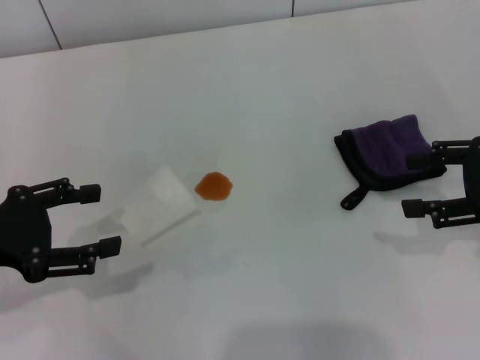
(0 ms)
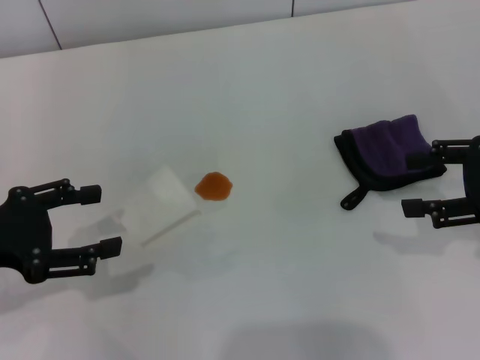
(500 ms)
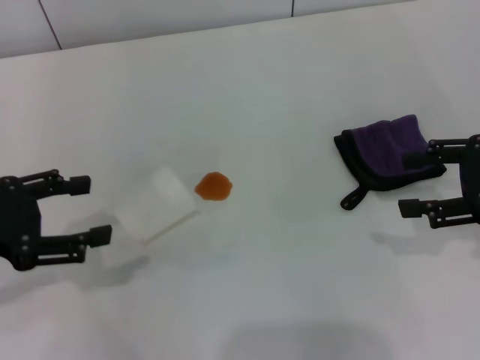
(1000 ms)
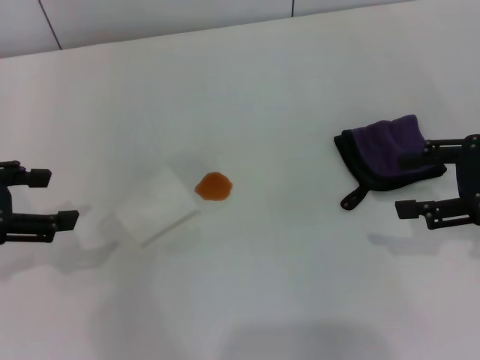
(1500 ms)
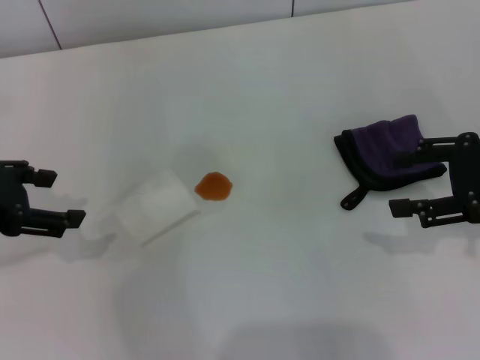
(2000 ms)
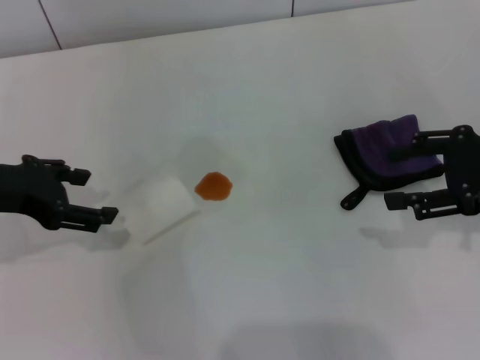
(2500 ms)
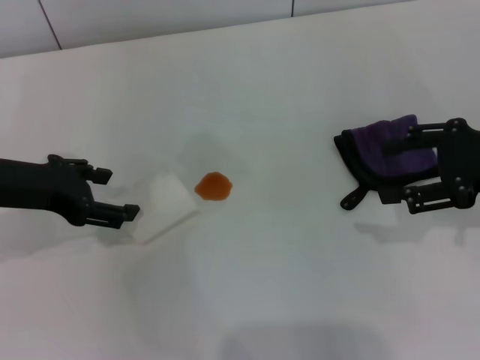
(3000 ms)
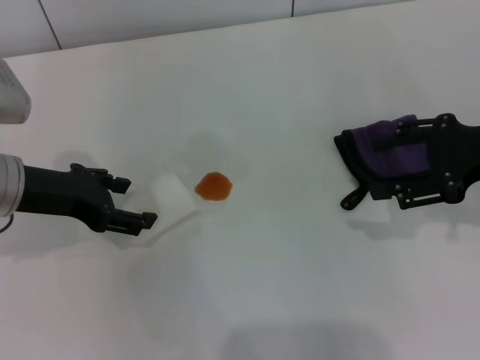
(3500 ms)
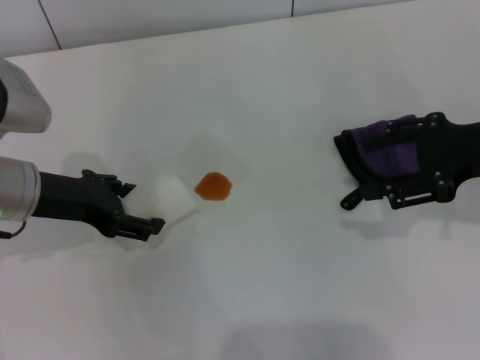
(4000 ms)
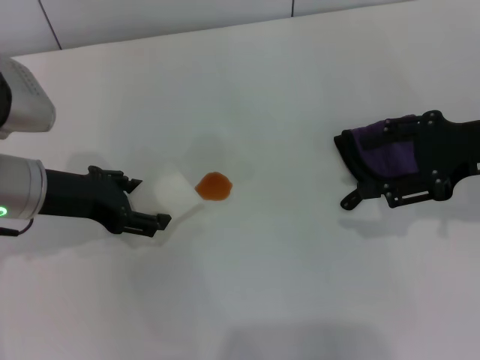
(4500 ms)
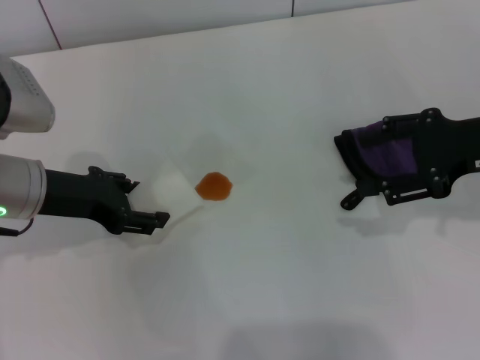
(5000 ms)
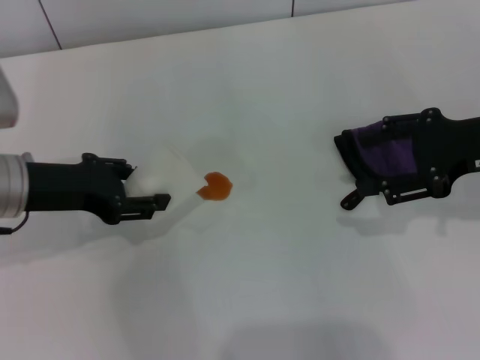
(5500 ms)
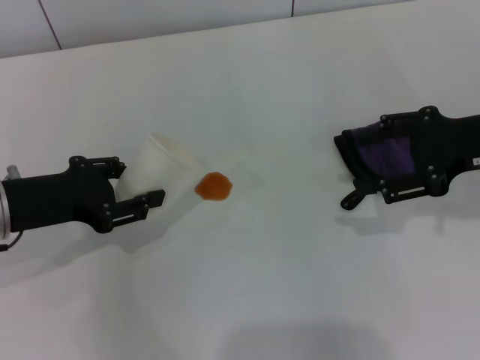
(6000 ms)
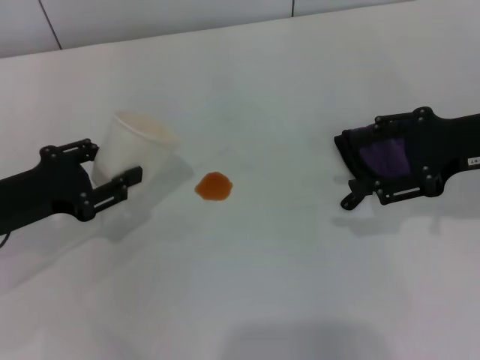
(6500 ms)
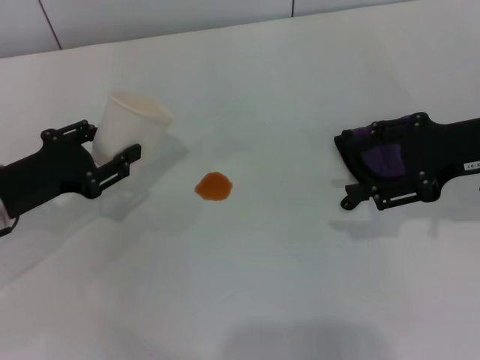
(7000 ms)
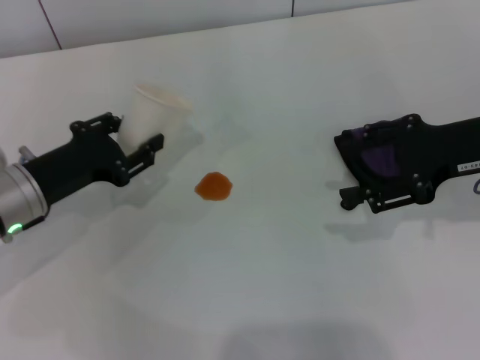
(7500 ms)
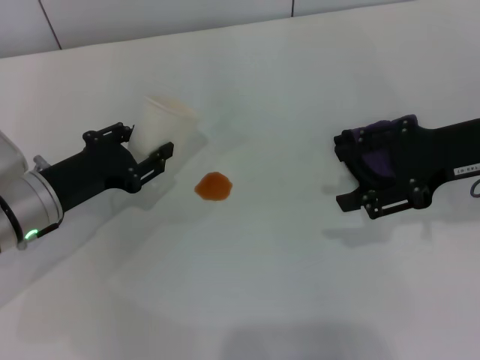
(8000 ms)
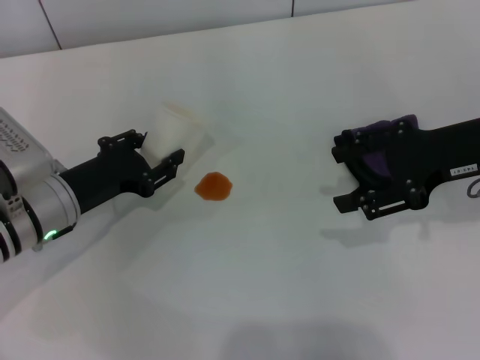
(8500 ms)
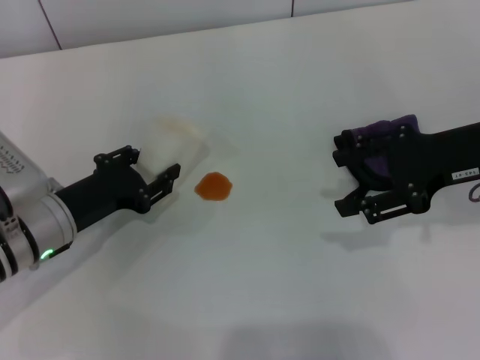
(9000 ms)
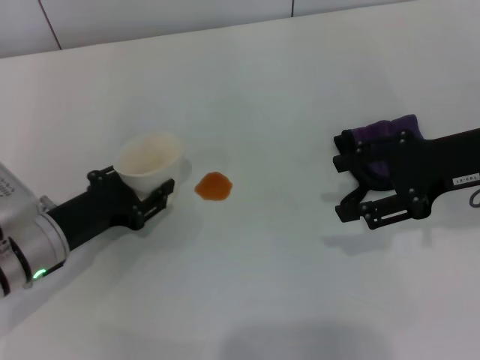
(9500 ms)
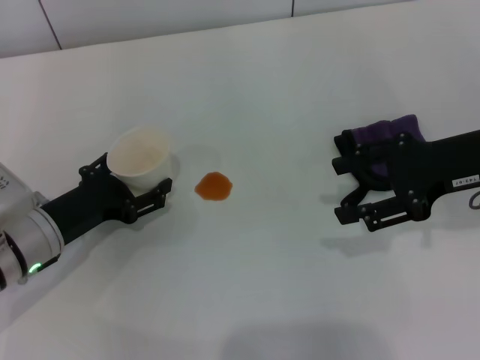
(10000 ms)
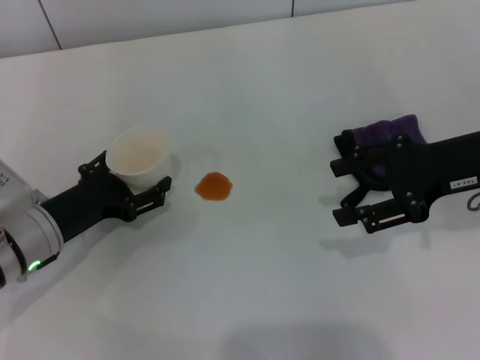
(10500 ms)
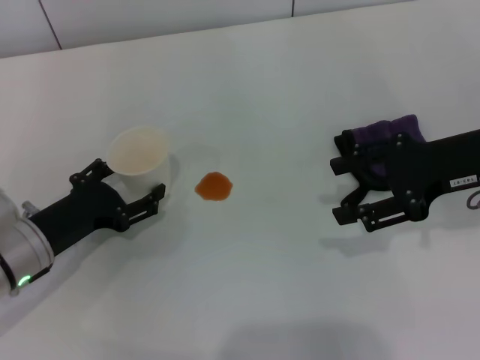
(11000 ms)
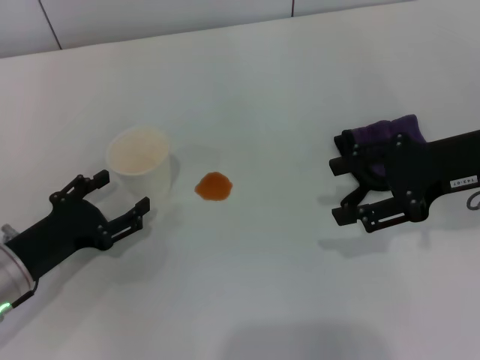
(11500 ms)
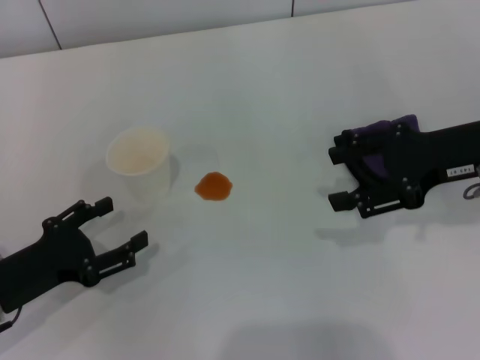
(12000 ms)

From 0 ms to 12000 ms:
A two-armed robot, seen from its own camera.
Step, from 0 ms to 4500 ms: Grasp the paper cup with the left gripper.
Step, from 5000 ms to 11500 ms: Stand the paper cup upright with the left gripper.
From 0 ms to 2000 ms: The left gripper moves roughly 5 cm.
From 2000 ms to 4000 ms: The left gripper shifts roughly 10 cm downward and to the right.
From 4000 ms to 6000 ms: The left gripper closes its fingers.
From 6000 ms to 8000 ms: The left gripper goes approximately 5 cm downward.
From 8000 ms to 10000 ms: The left gripper opens.
From 10000 ms to 12000 ms: The left gripper is displaced backward by about 5 cm, and opens its fingers.

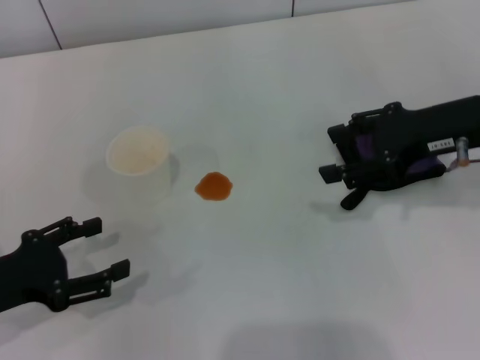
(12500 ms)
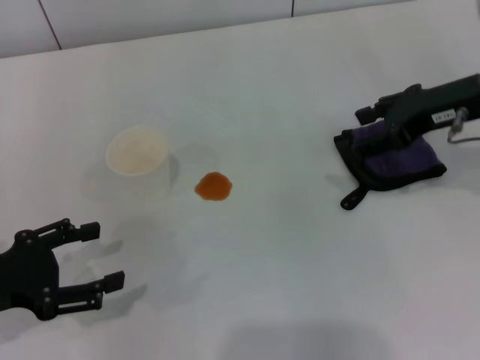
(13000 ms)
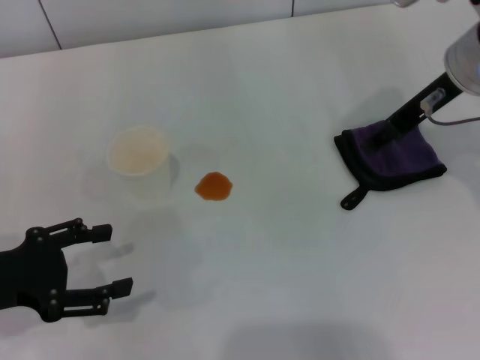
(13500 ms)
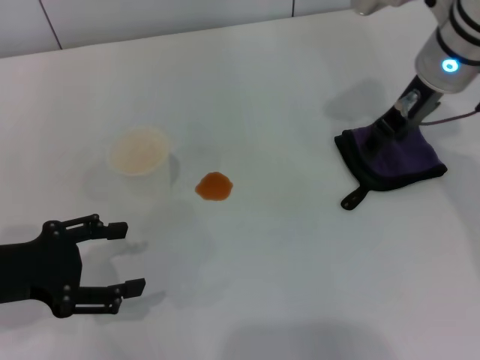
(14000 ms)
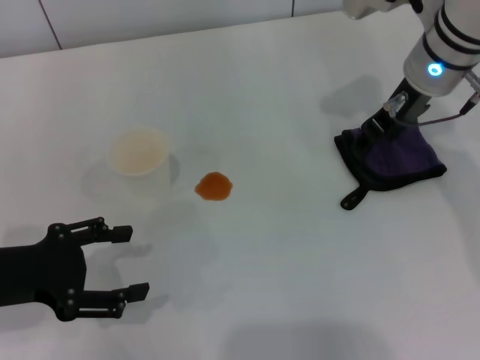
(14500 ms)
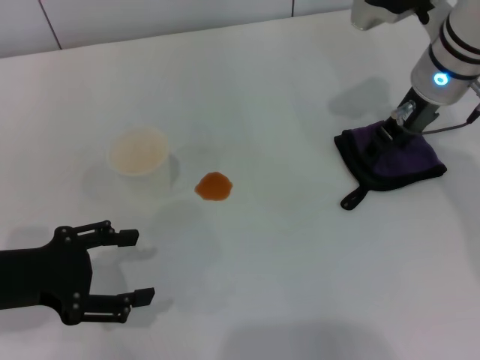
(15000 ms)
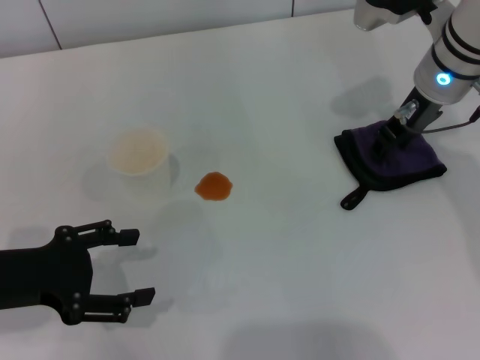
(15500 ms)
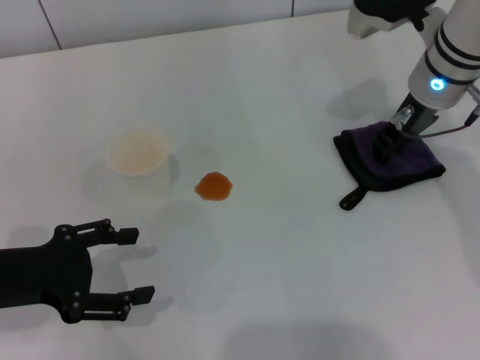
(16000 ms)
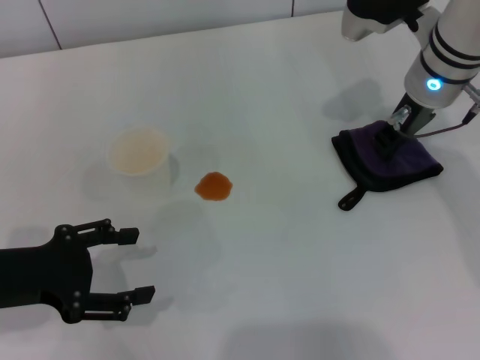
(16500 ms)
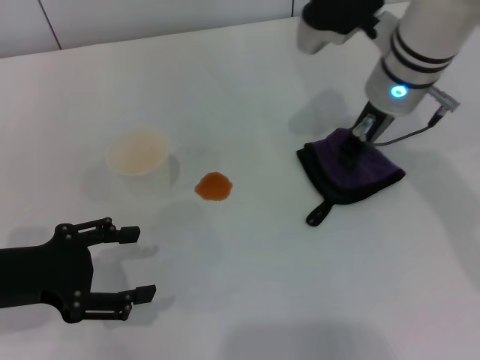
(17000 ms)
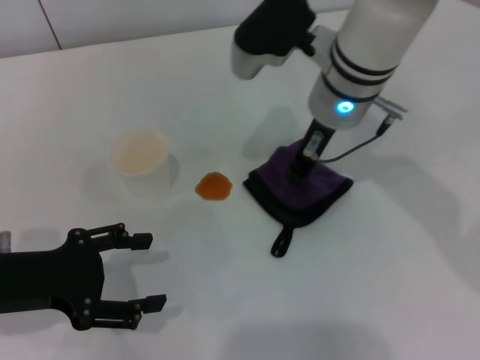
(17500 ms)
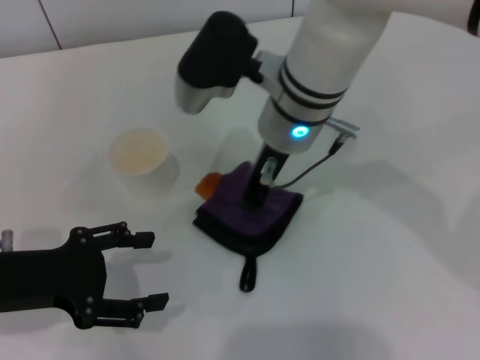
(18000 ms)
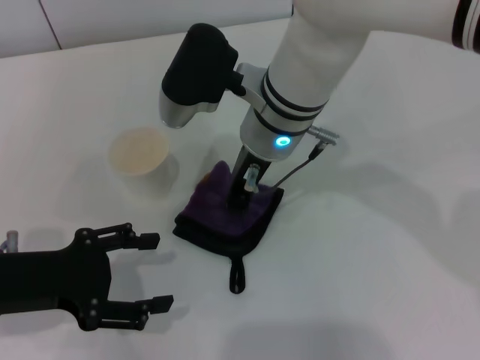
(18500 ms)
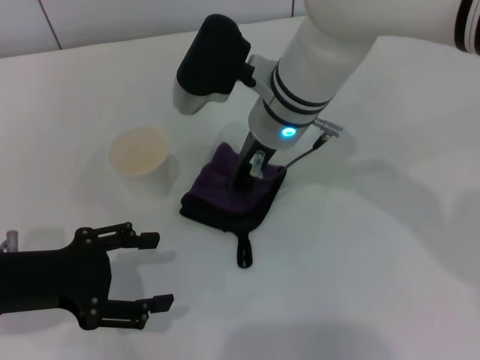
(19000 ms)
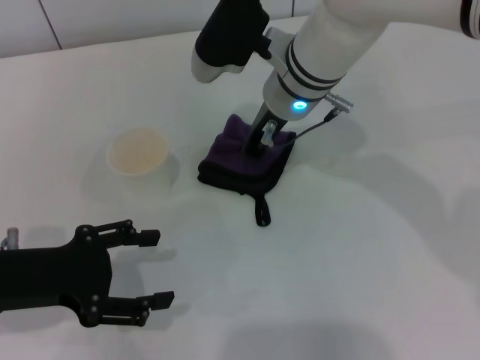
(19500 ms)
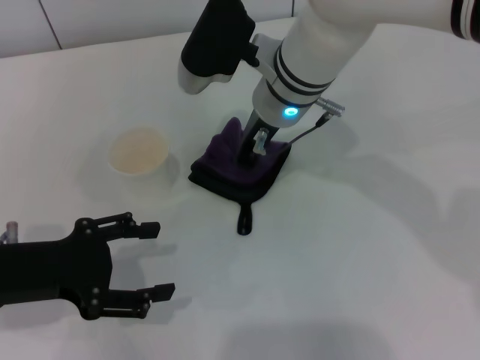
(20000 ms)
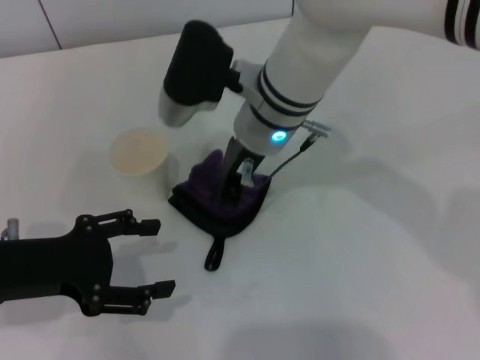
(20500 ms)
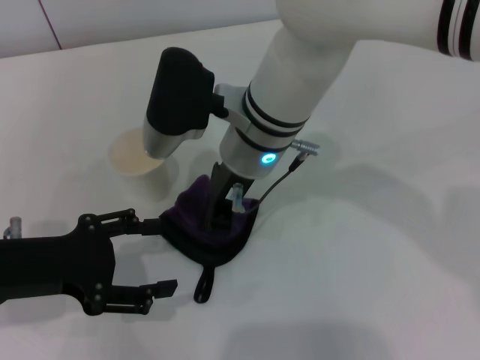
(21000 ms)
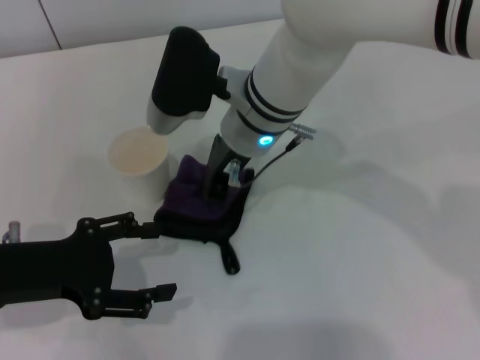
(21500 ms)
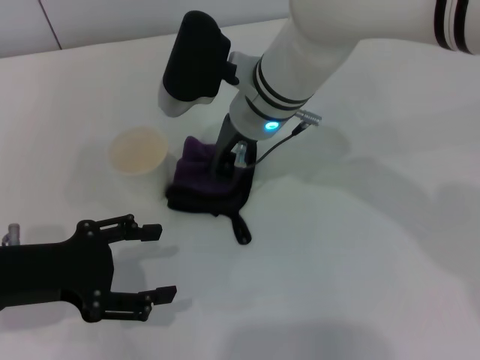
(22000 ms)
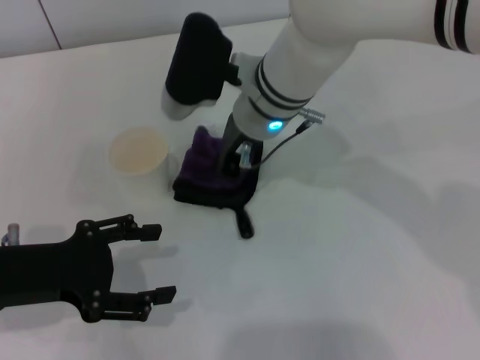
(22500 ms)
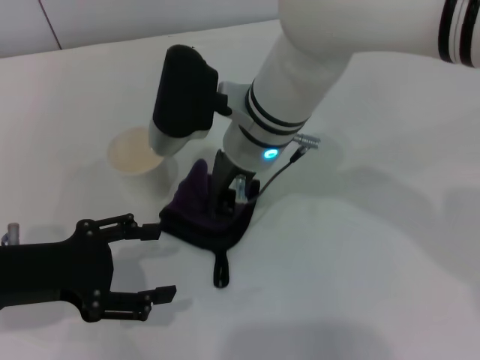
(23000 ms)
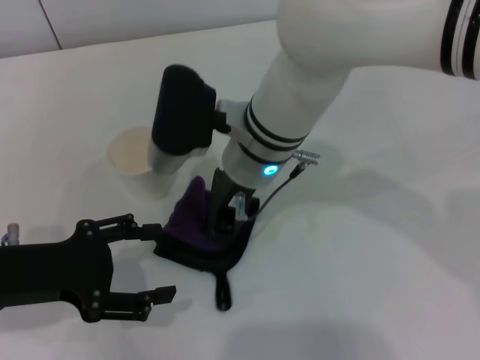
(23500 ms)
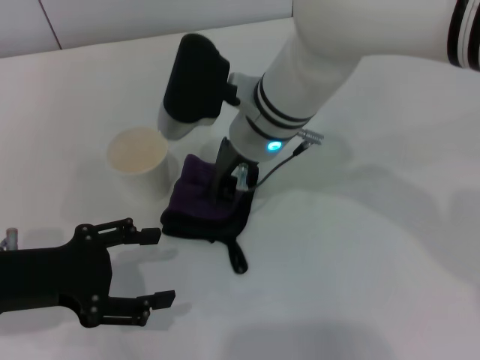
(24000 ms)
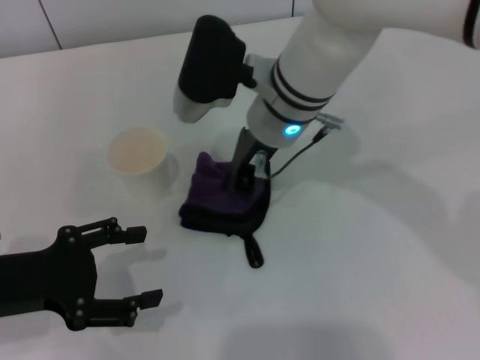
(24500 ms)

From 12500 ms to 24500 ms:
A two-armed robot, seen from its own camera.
Step, from 12500 ms to 16500 ms: Grasp the rag with the right gripper.
From 12500 ms to 14500 ms: The right gripper heads forward and to the left, covering roughly 10 cm.
From 14500 ms to 16500 ms: The right gripper closes its fingers.
From 16500 ms to 18500 ms: The right gripper goes some 15 cm to the left.
From 18500 ms to 24500 ms: There are only small adjustments of the grippers.

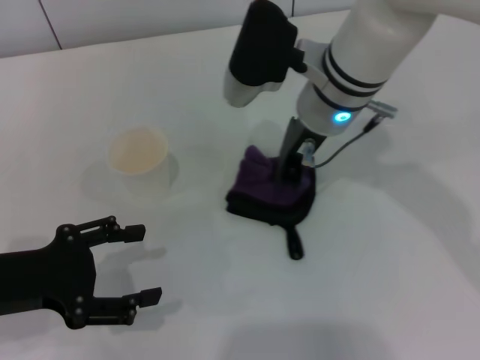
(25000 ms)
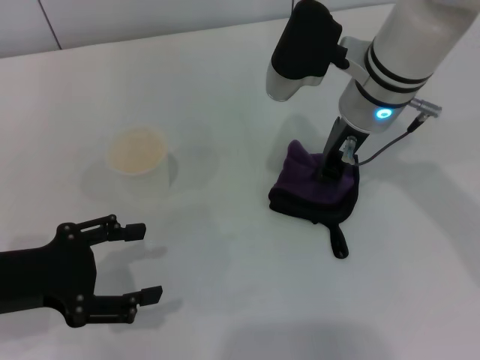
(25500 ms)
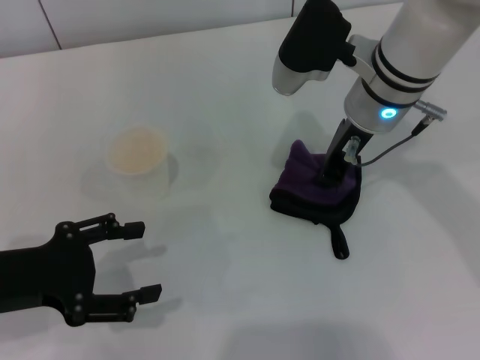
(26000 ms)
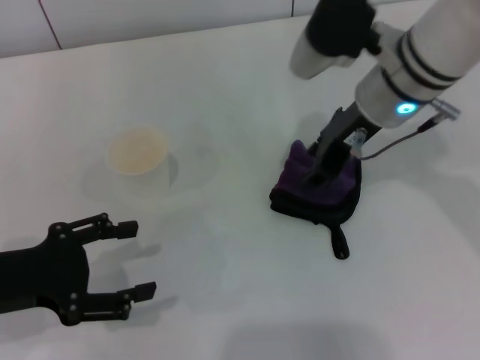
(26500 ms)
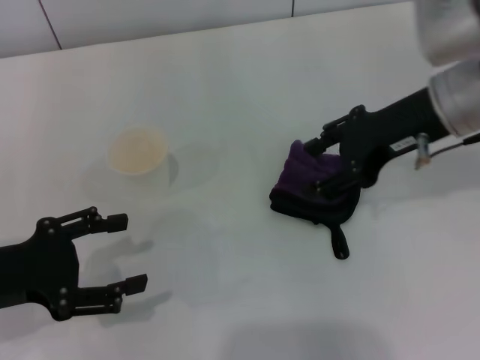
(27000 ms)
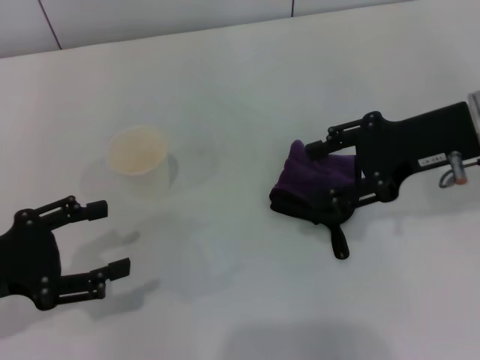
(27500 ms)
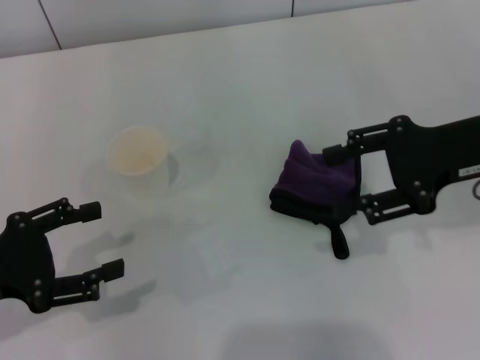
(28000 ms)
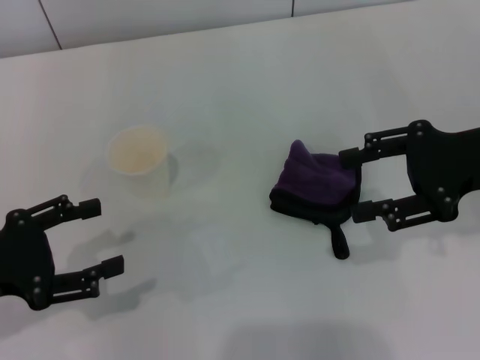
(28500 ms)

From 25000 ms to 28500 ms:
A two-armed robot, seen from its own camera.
Step, from 25000 ms to 26500 ms: Place the rag on the table with the right gripper.
From 25000 ms to 27000 ms: The right gripper heads to the right and backward, covering about 15 cm, and opens its fingers.
From 27000 ms to 28500 ms: The right gripper moves to the right, some 5 cm.
